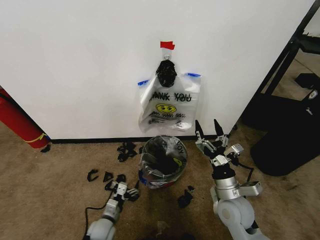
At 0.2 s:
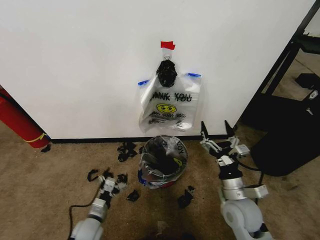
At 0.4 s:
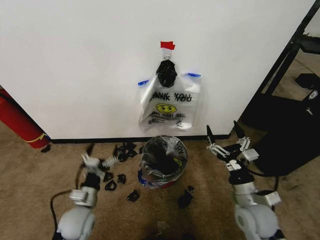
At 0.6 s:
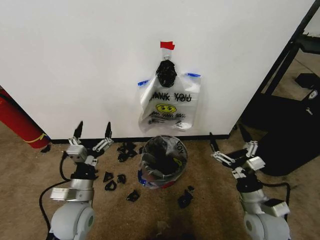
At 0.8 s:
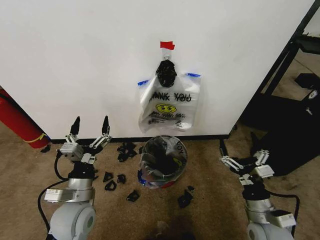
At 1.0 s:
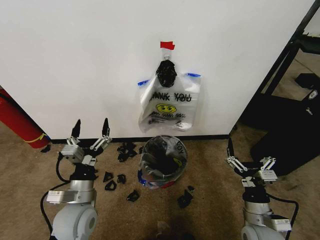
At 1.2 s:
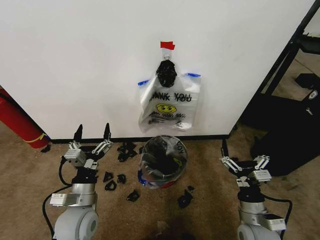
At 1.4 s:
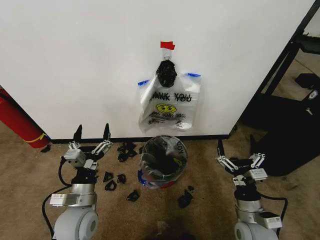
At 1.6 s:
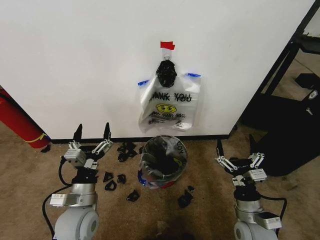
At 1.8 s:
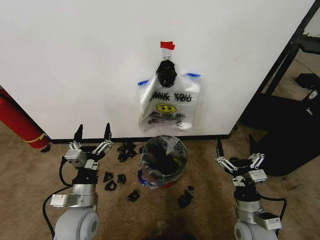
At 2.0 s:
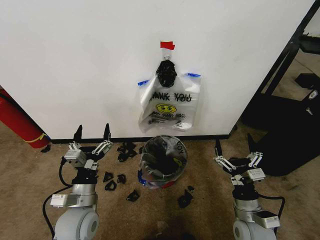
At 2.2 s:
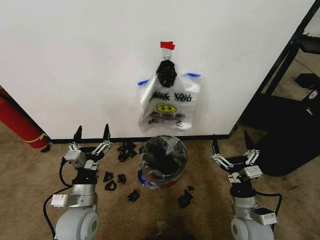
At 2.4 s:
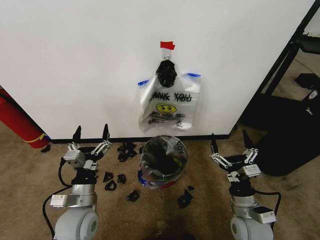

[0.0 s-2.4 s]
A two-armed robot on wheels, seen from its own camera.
Task of the whole recording: Pick up the garbage bag from the wall and place it over the trash bin.
0.0 to 1.2 s: The left gripper moves upward, roughly 25 cm; the right gripper travels backward and to the right by some 10 cm.
1.2 to 2.4 s: The grippers stay close to where they were, moving slightly.
